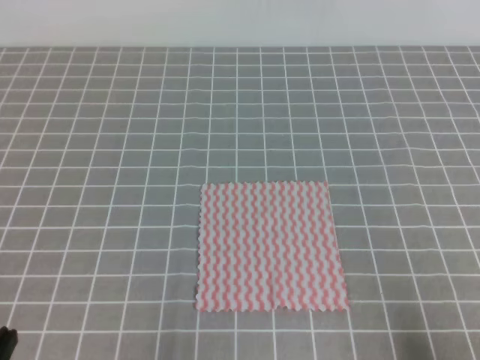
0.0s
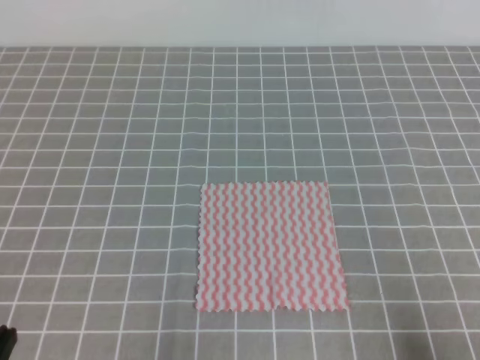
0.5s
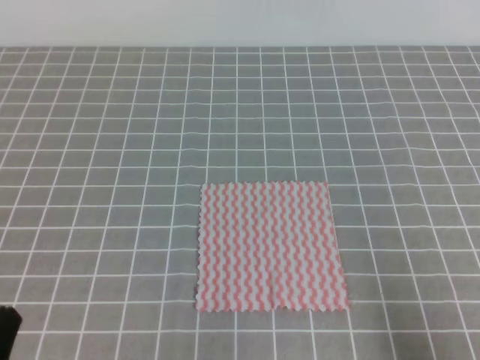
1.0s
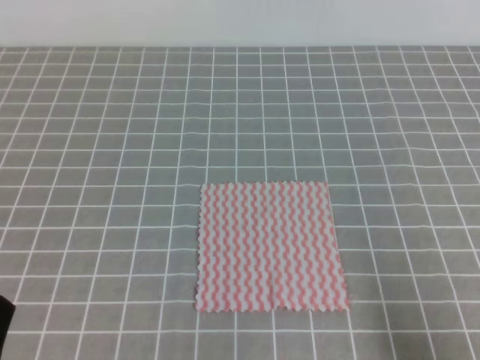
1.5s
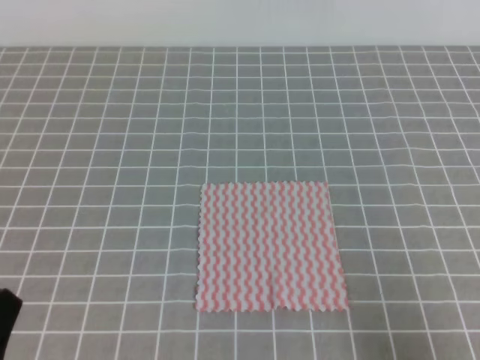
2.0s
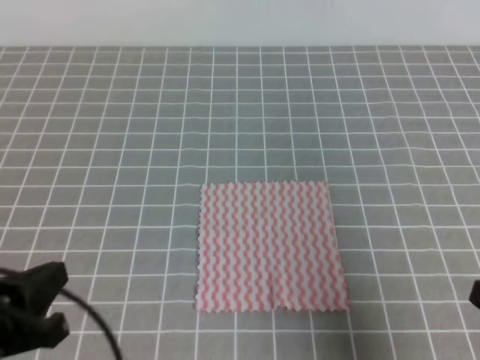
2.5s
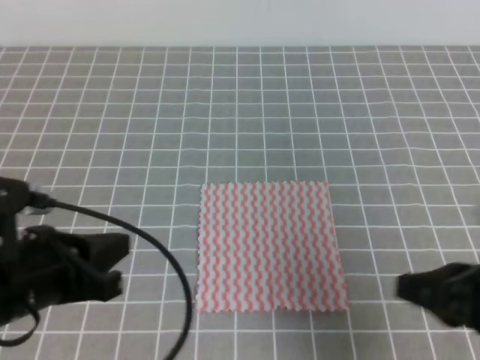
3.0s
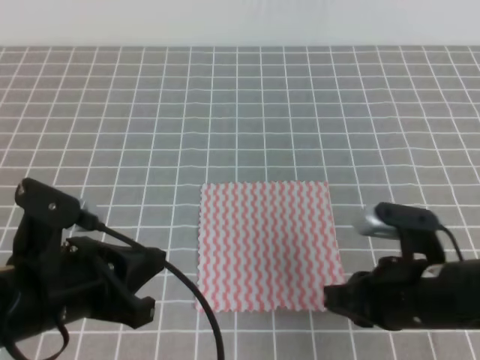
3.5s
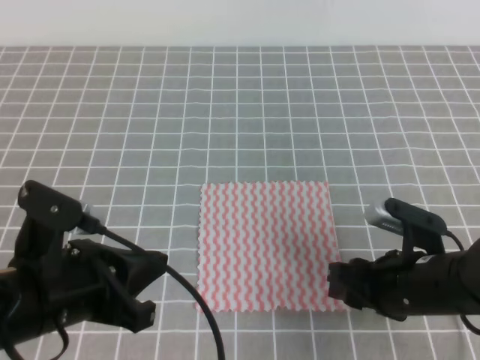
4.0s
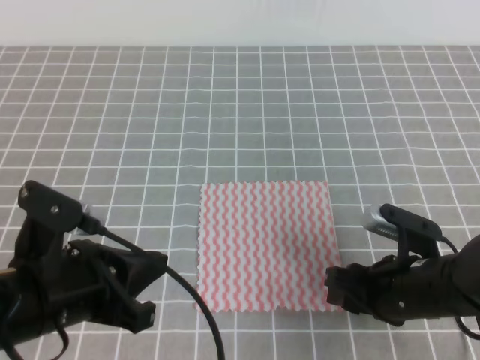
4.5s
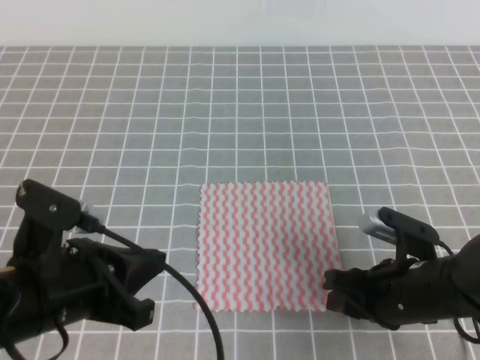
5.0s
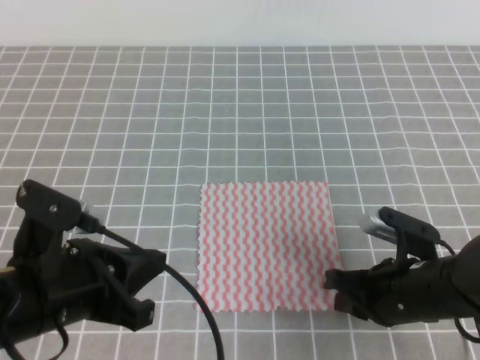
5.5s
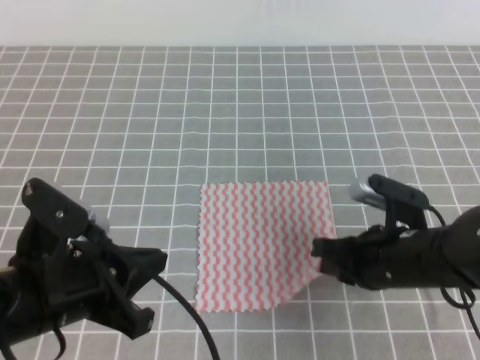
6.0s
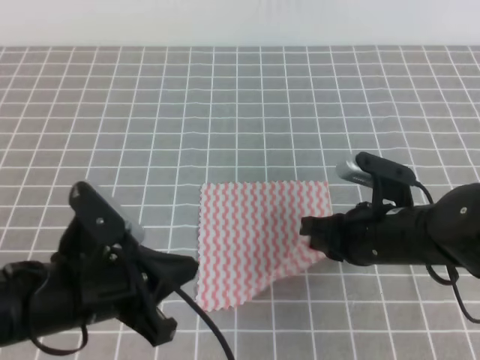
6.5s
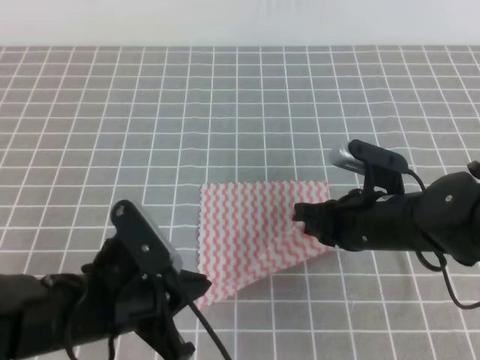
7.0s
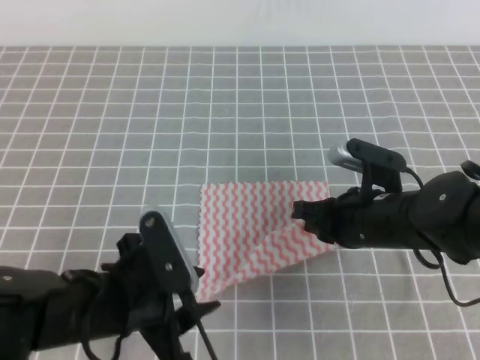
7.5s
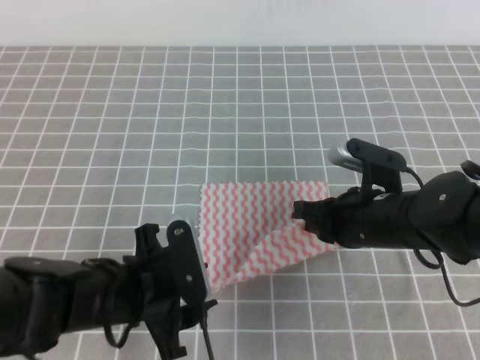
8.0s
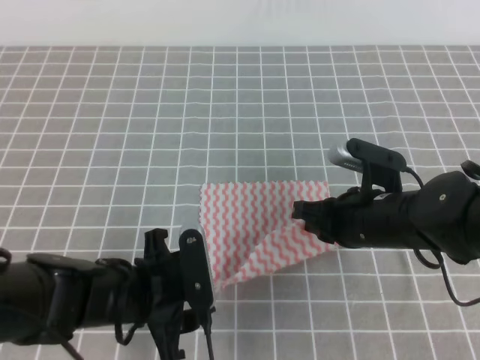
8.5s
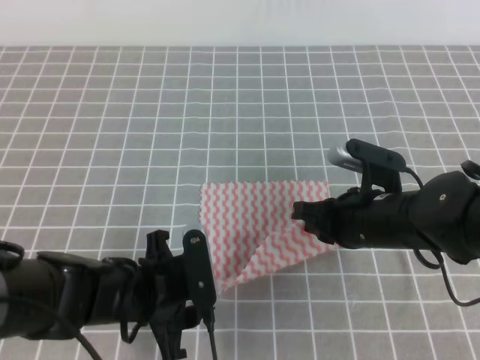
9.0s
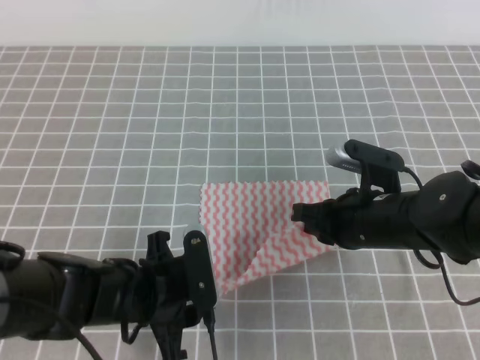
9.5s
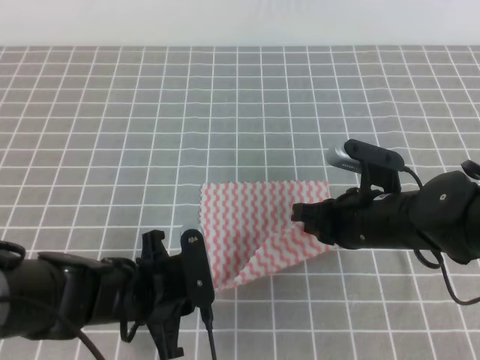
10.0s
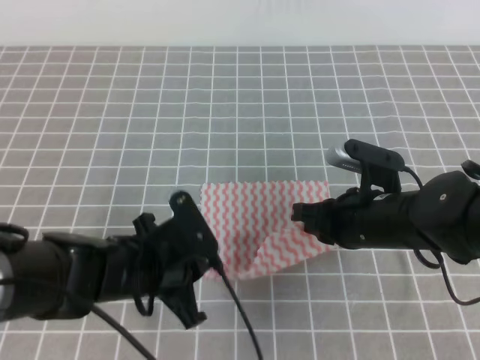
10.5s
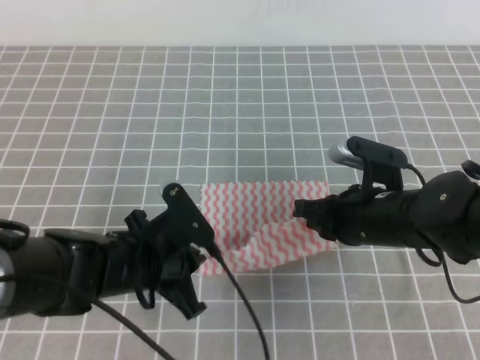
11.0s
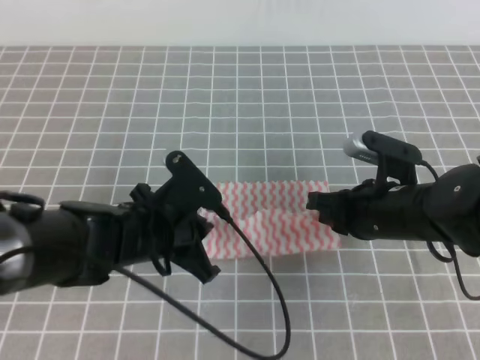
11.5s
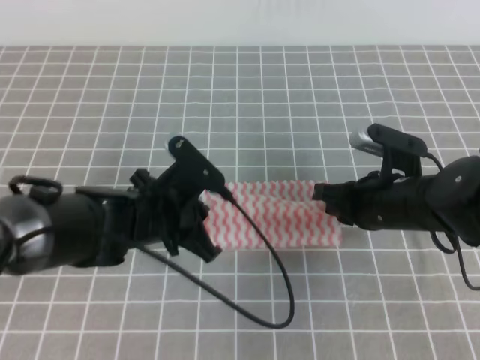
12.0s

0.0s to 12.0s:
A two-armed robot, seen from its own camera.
2.0s to 4.0s: The right gripper goes approximately 20 cm forward and to the left, and opens up, while the left gripper is displaced forward and to the right by approximately 15 cm.
4.0s to 6.0s: The right gripper closes up.
6.0s to 8.0s: The left gripper goes about 10 cm downward and to the right, and opens, while the right gripper changes place by some 5 cm.
8.0s to 10.0s: The left gripper closes.
10.0s to 12.0s: The left gripper heads forward, covering some 5 cm.

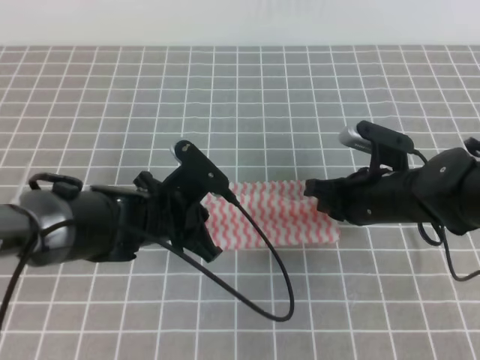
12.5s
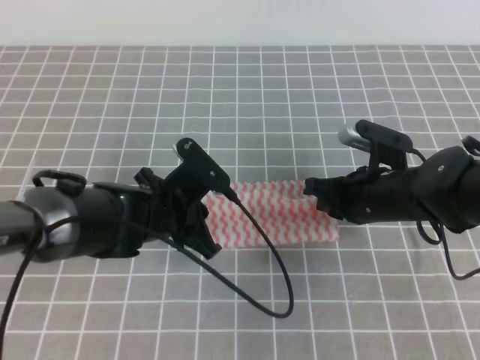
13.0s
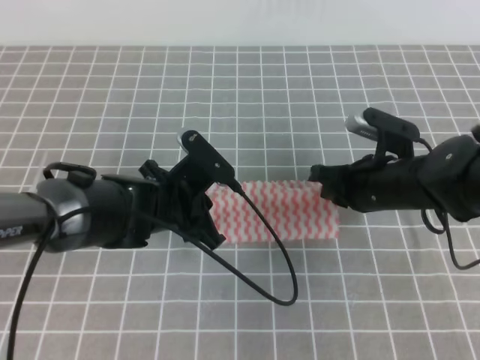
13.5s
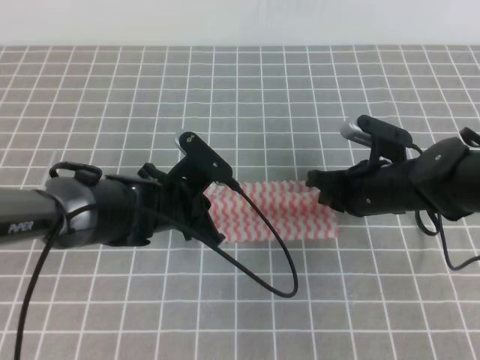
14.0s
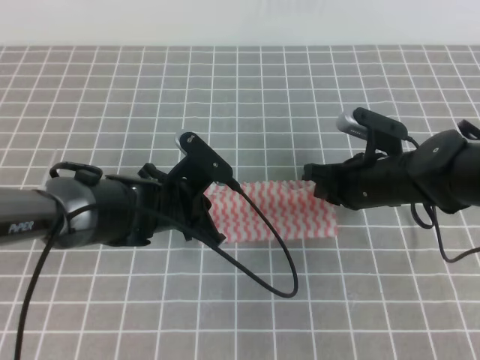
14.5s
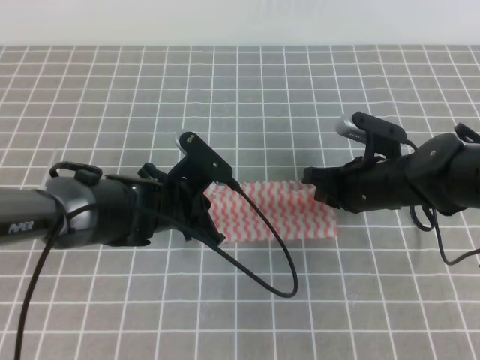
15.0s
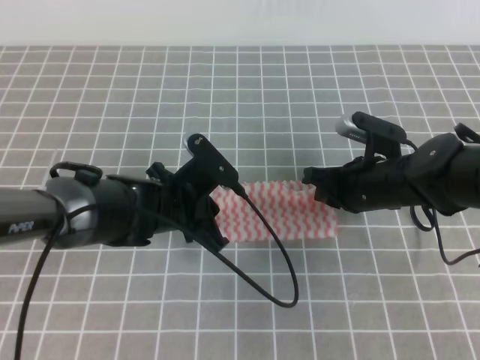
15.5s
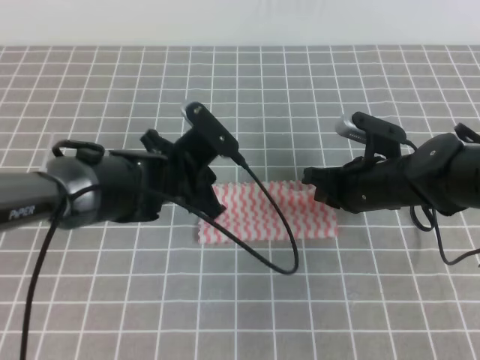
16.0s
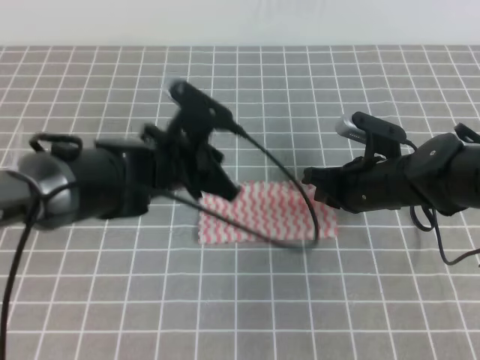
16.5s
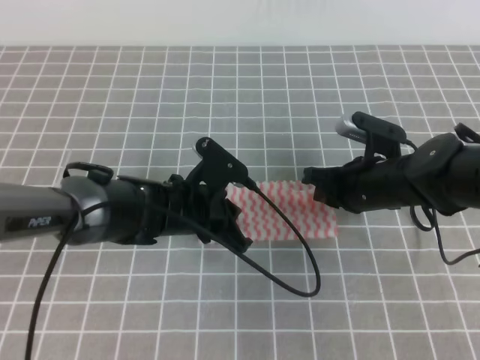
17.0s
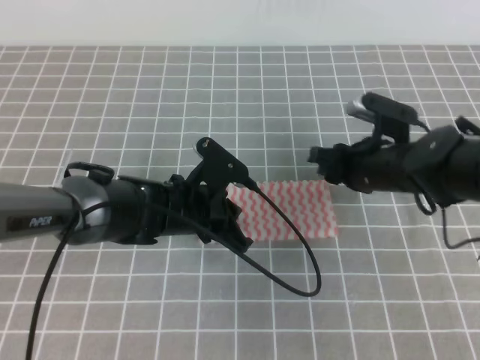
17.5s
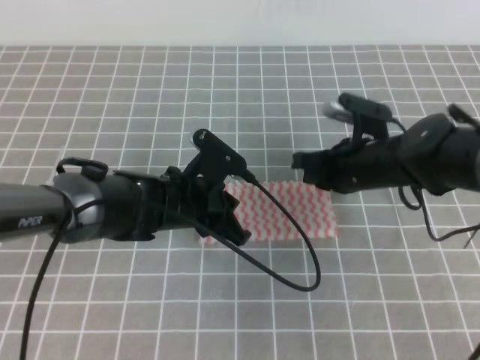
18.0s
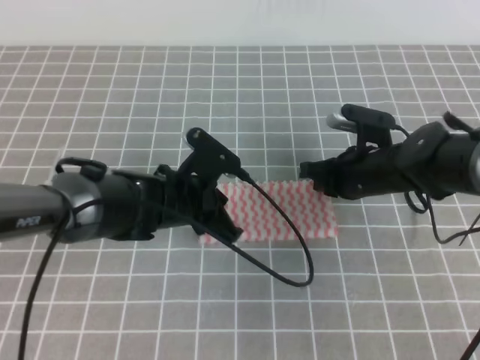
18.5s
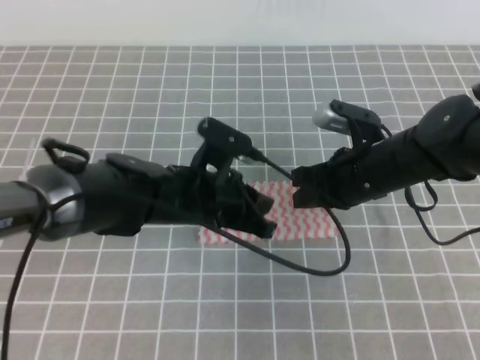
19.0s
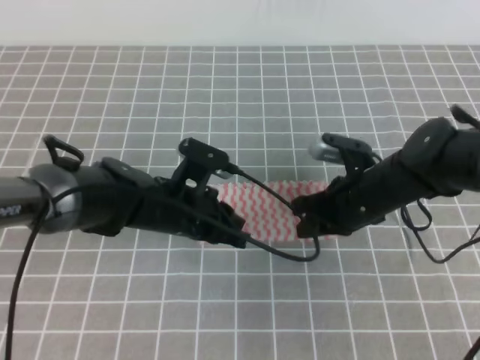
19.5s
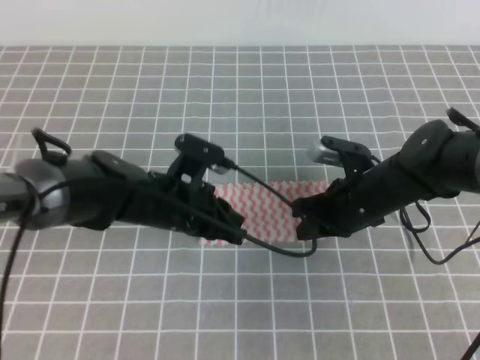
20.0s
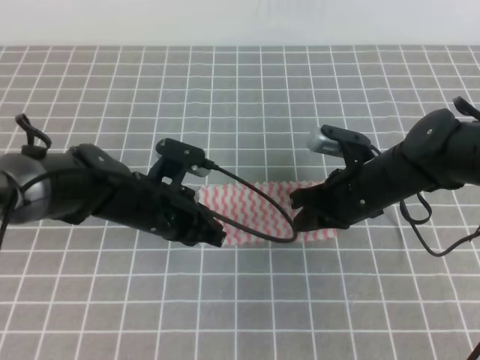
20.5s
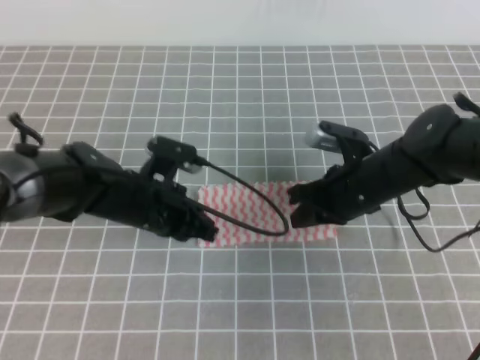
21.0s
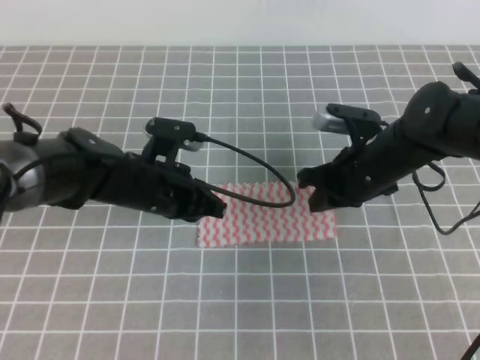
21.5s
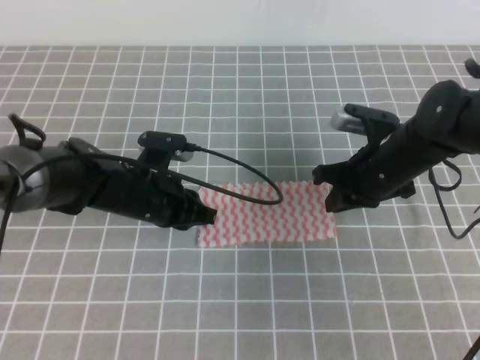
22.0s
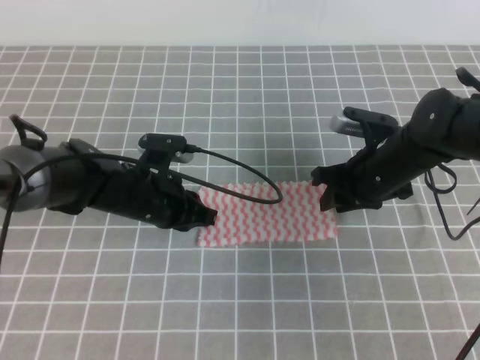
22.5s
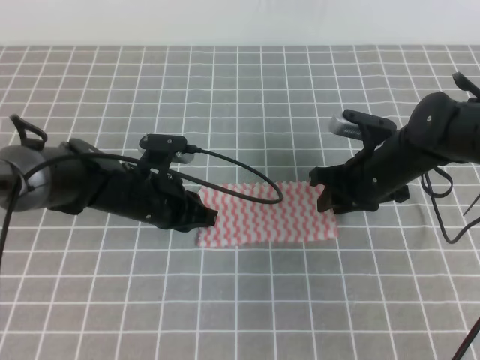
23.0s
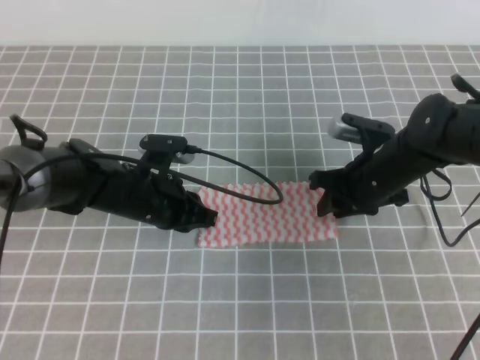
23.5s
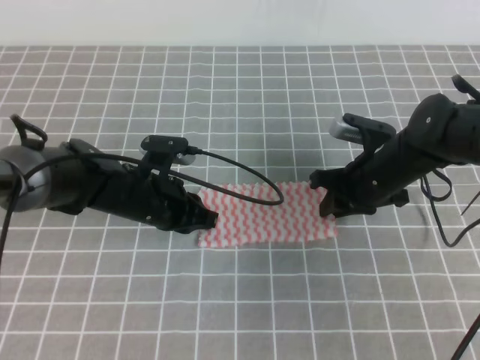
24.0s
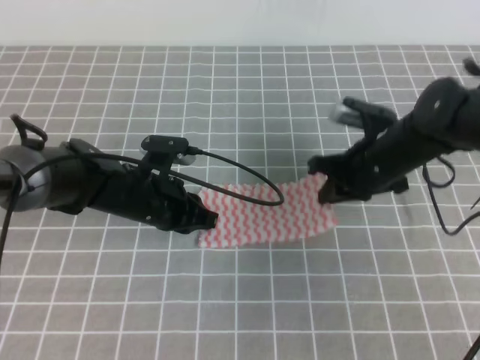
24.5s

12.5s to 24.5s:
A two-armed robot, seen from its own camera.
12.5s to 16.5s: There are only small adjustments of the grippers.
16.5s to 18.5s: The right gripper opens, then closes once more.
20.5s to 22.5s: The right gripper opens.
22.5s to 24.5s: The right gripper closes.

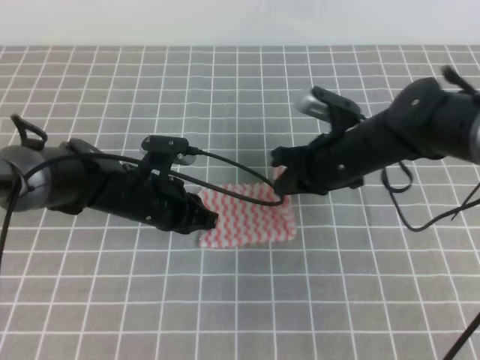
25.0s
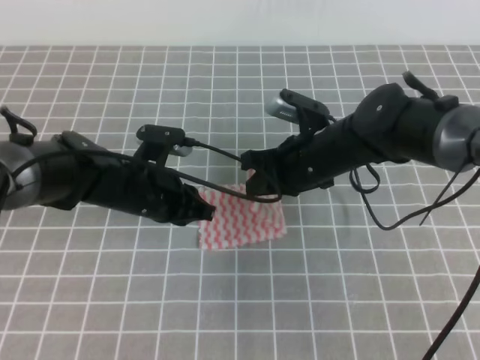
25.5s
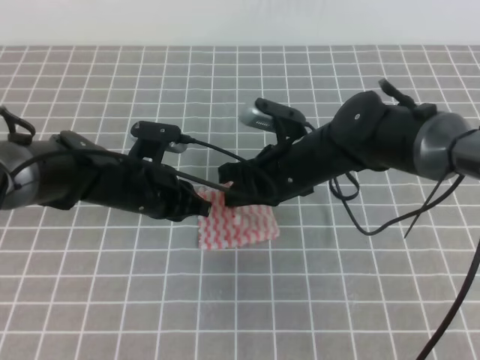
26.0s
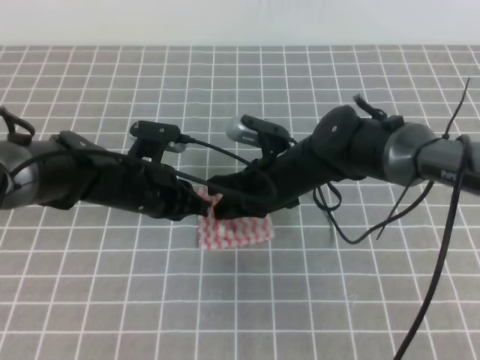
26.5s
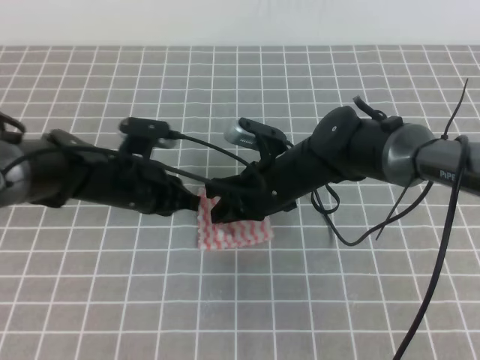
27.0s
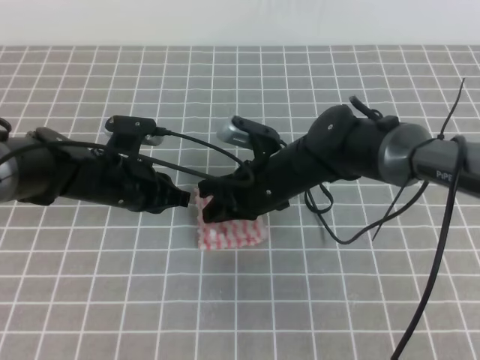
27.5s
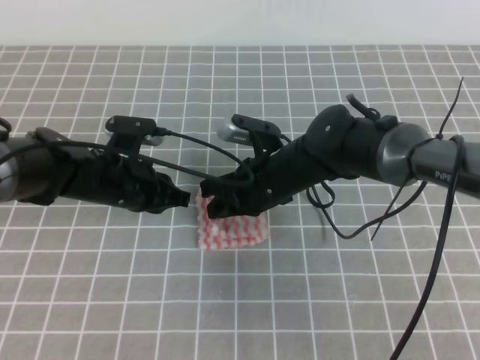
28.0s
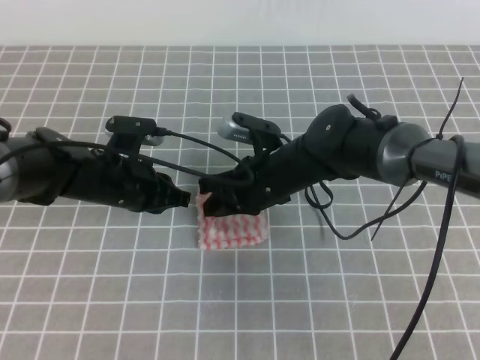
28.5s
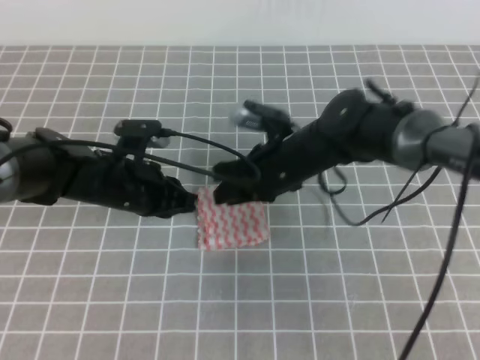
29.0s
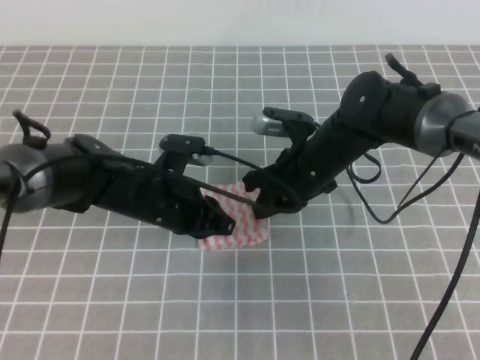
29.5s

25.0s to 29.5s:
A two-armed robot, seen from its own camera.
25.0s to 27.0s: The right gripper travels to the left by approximately 10 cm.
27.0s to 29.5s: The right gripper opens, then closes again.
